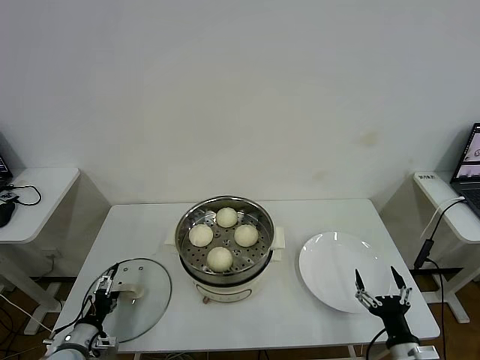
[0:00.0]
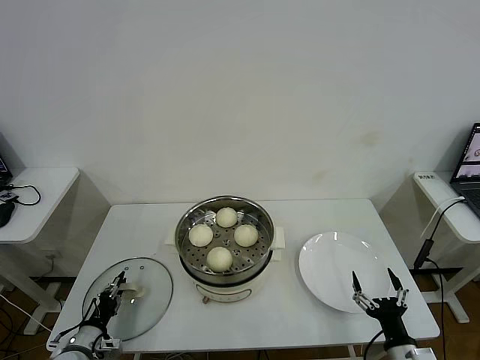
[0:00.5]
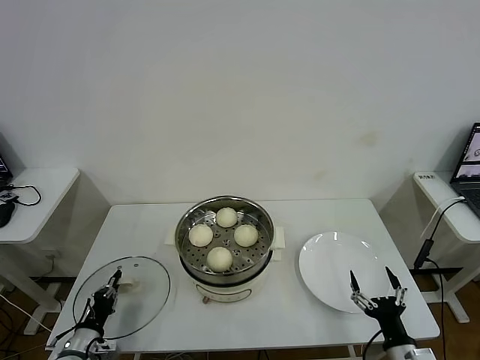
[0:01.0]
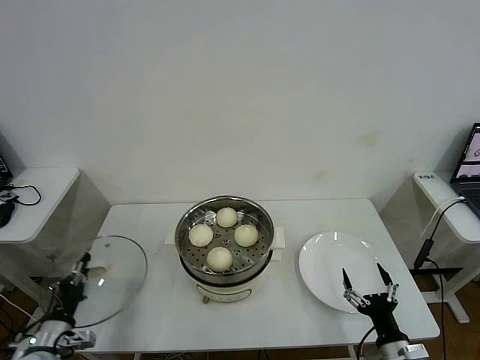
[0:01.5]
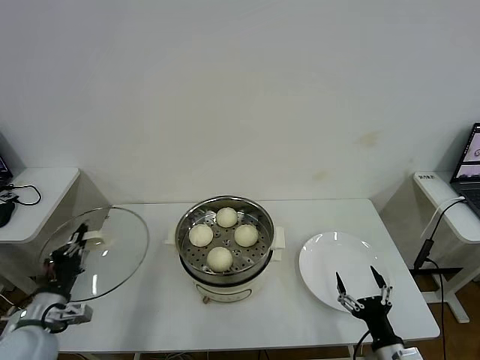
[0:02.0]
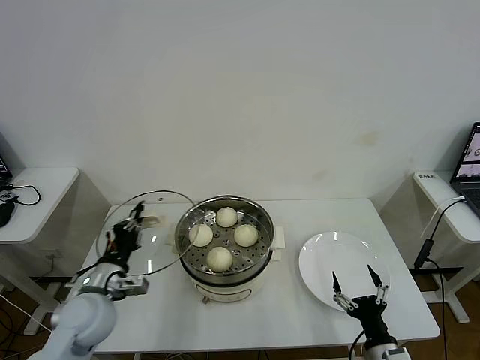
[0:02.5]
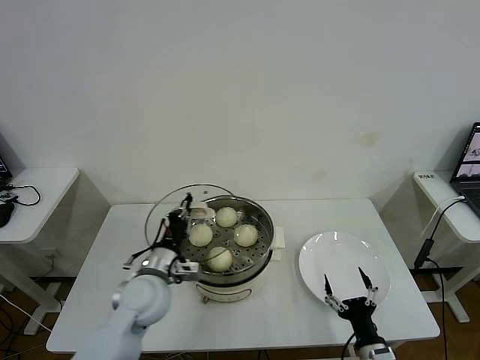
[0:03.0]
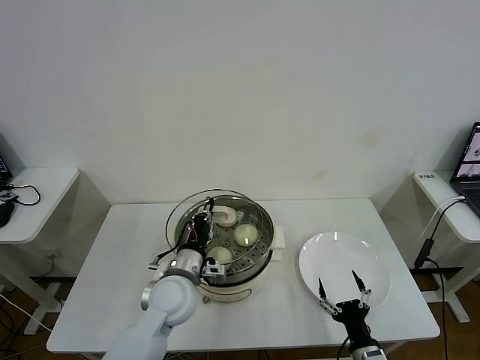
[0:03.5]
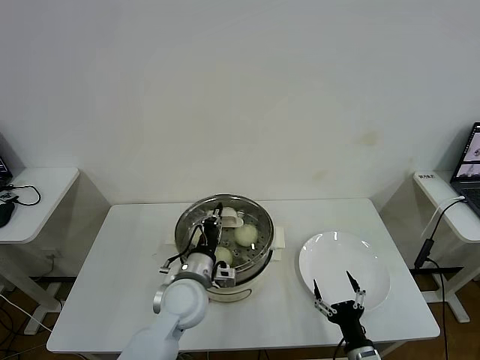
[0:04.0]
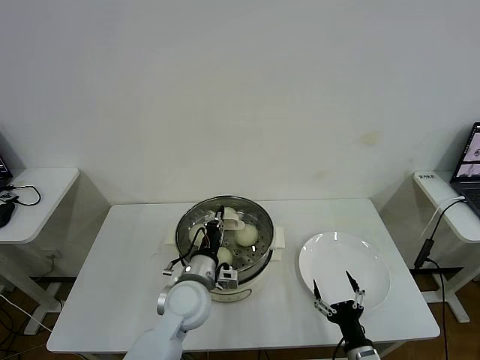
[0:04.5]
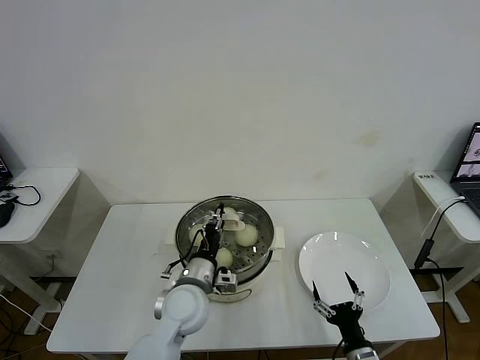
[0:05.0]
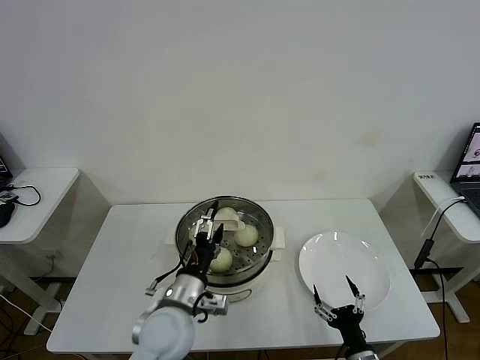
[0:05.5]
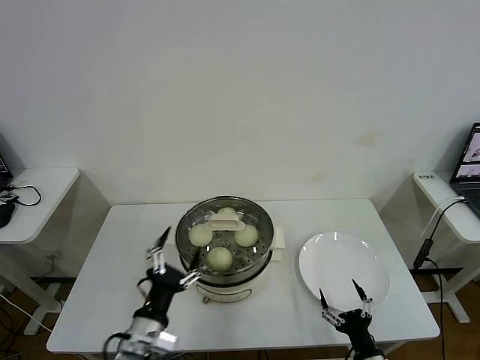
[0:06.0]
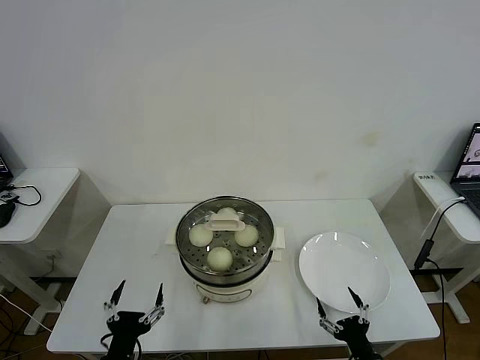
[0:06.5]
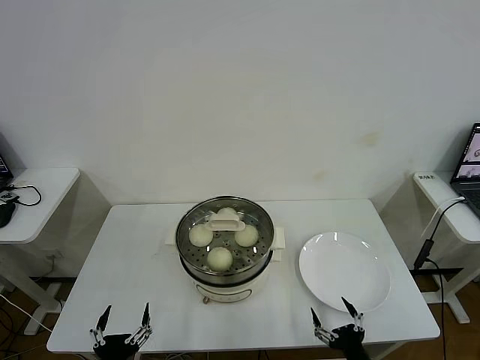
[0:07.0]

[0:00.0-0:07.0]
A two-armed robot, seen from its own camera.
Task of the whole recording: take steamed baozi put them in steamer then cover it.
Step, 0:01.0 to 0:05.0: Place the pot lid on the steamer with left gripper.
0:00.0 to 0:02.0: The left gripper moves upward, about 15 cm, and closes its fingers.
0:02.0 to 0:03.5: The left gripper moves to the right, about 25 cm.
0:03.5 to 0:05.0: The grippers make only small movements.
0:05.0 to 0:07.0: The left gripper goes about 25 cm backward and to the left, and opens its fingers.
